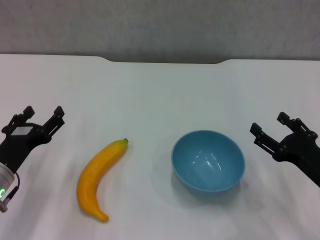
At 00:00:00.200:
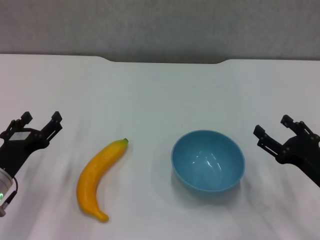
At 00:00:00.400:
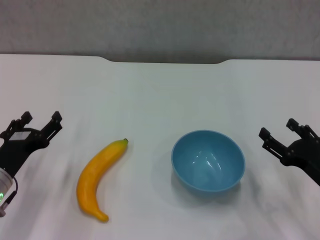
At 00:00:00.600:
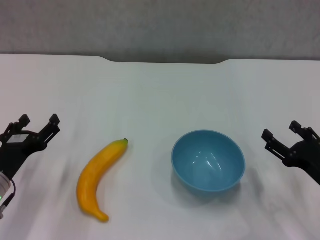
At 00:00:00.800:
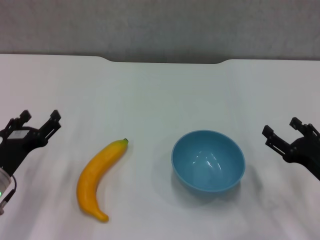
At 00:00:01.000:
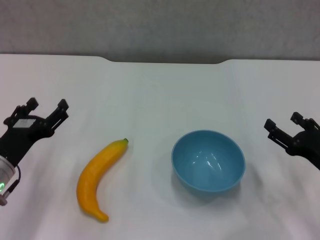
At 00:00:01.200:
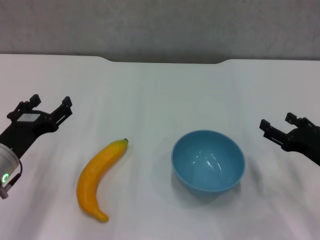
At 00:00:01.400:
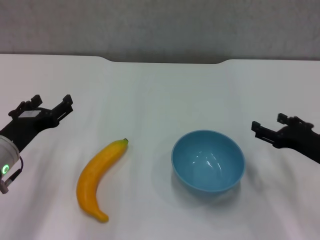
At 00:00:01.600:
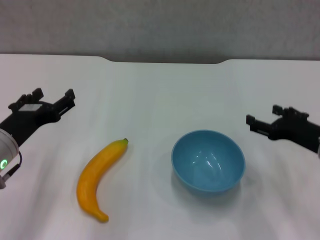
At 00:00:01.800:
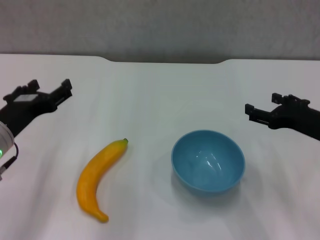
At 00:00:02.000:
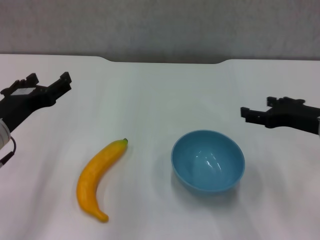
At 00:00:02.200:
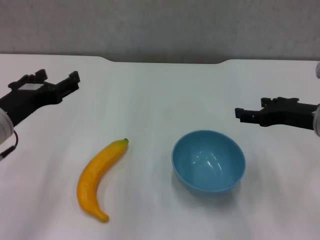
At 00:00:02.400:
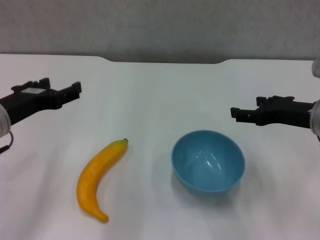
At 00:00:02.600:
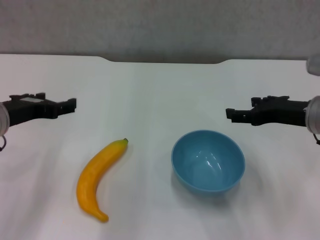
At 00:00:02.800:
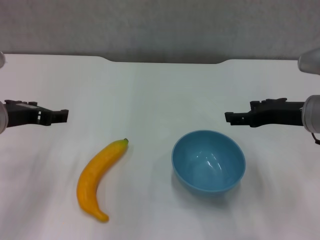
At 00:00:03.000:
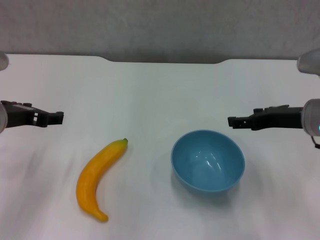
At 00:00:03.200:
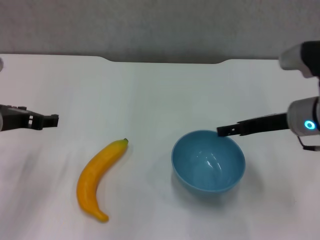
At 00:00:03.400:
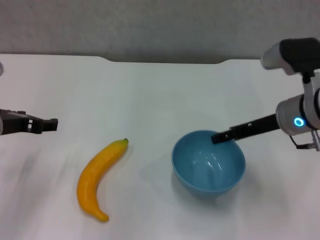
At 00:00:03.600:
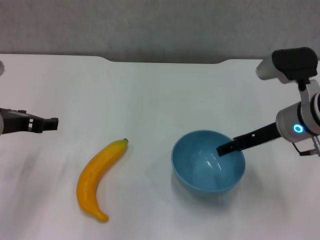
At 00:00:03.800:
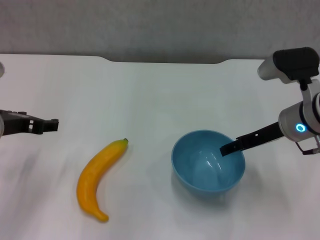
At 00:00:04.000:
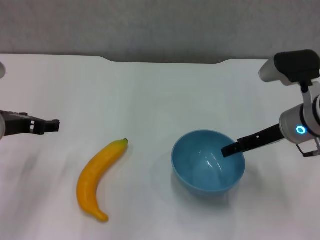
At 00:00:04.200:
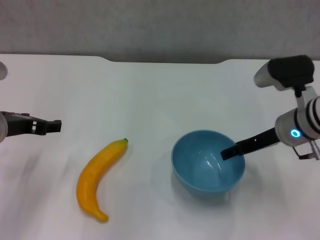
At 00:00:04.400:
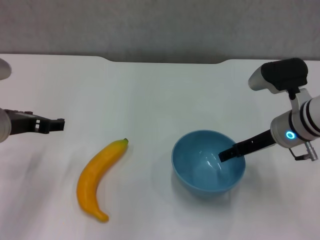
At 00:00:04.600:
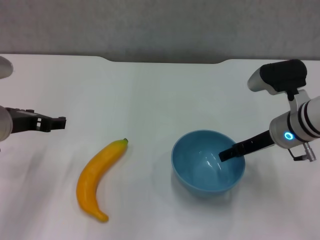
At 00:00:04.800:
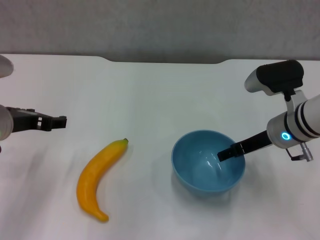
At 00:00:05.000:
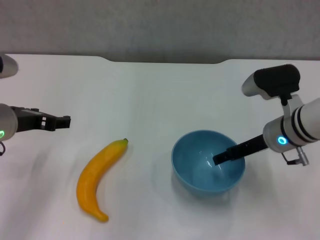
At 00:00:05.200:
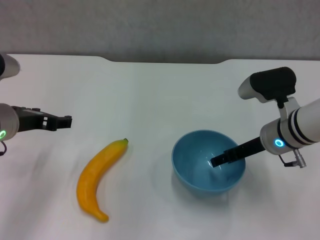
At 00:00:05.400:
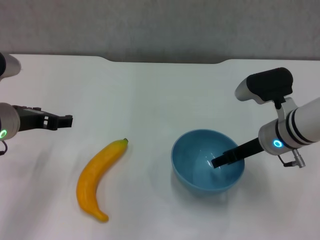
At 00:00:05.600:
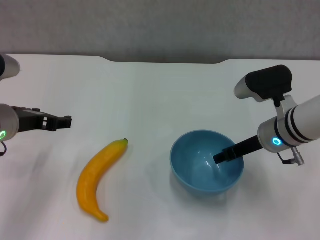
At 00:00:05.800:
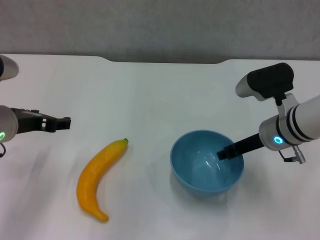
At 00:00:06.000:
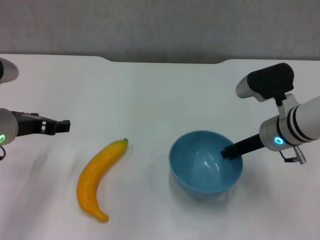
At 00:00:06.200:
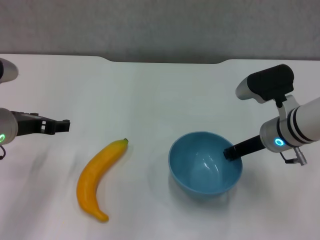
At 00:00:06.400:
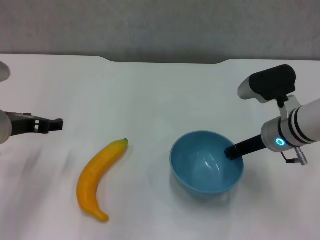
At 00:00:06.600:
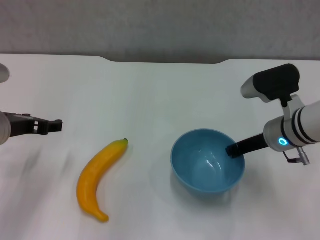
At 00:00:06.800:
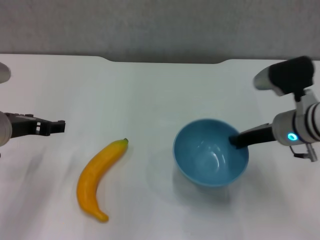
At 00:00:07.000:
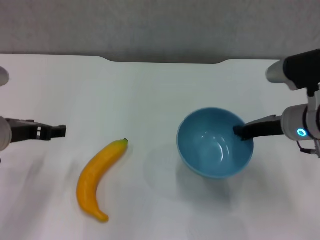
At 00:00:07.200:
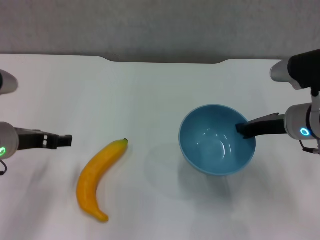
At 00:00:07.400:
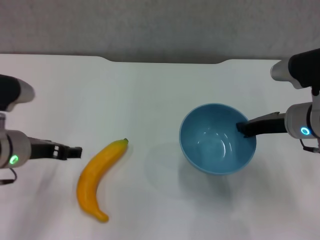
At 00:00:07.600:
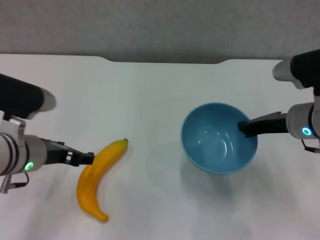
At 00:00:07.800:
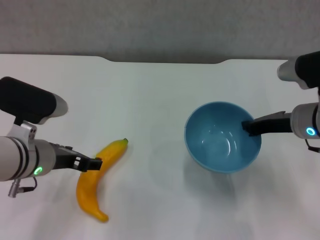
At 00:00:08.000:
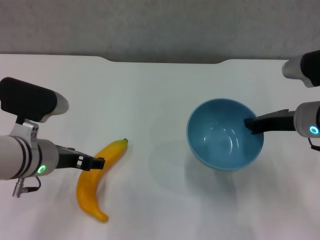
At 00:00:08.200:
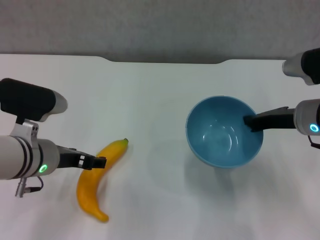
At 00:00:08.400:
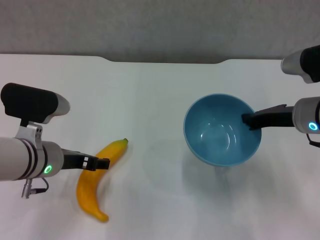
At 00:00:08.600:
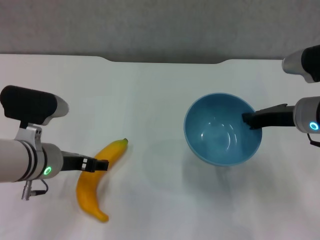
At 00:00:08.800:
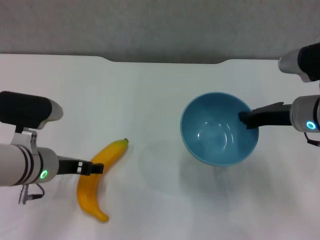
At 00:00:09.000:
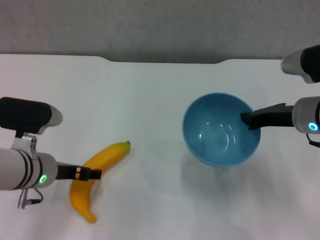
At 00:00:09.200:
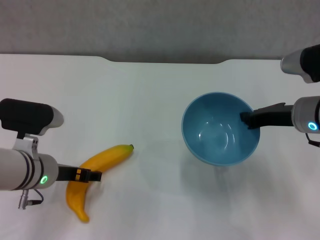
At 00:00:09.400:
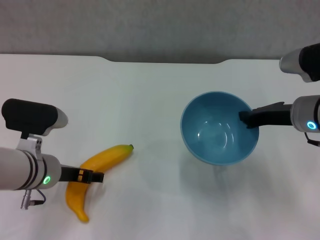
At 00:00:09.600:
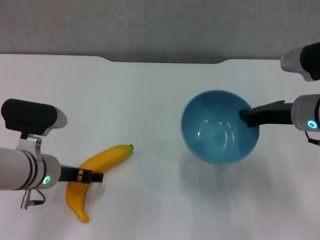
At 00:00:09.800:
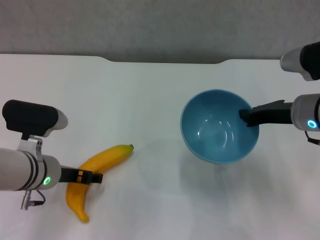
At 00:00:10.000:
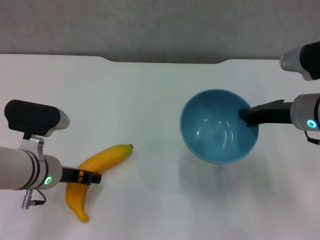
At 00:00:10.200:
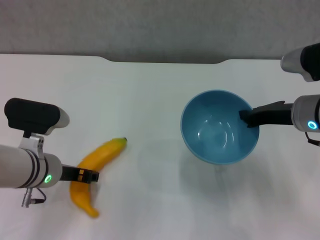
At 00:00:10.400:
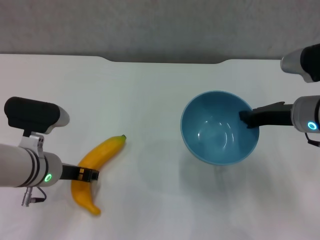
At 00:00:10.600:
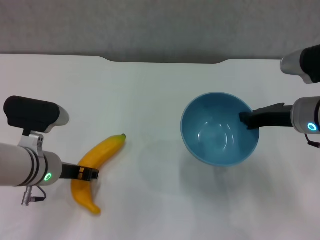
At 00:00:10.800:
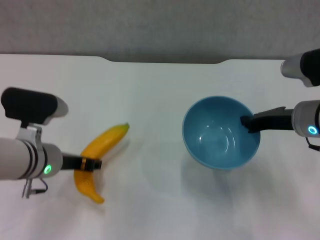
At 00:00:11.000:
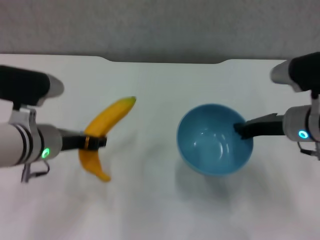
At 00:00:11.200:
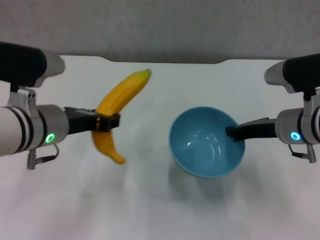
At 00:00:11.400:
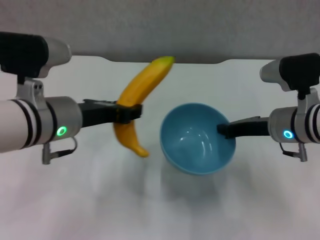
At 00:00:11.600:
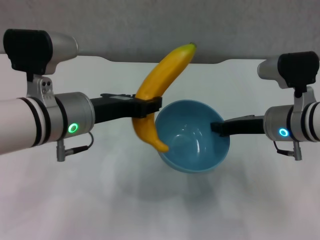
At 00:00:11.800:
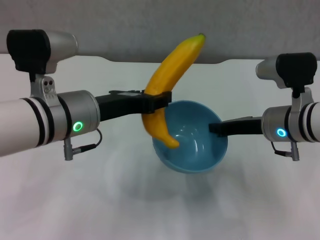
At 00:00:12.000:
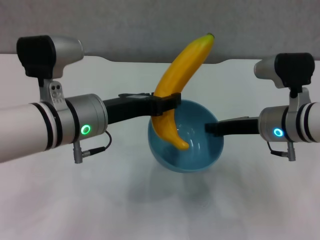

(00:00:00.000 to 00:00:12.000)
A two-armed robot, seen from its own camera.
Step, 00:00:00.000 - 00:00:06.200: Grasp the blue bowl with right gripper.
Step, 00:00:06.400 - 00:00:07.000: Lift the blue bowl with right gripper.
Step, 00:00:07.200 - 00:00:10.000: Grasp the banana with left gripper.
00:00:00.000 - 00:00:01.600: The right gripper travels forward by roughly 5 cm. The left gripper heads upward, covering about 5 cm.
00:00:01.600 - 00:00:03.000: Both grippers move upward, some 5 cm.
00:00:03.000 - 00:00:04.400: The right gripper ends up roughly 5 cm from where it was.
00:00:04.400 - 00:00:06.000: The right gripper closes its fingers.
00:00:06.000 - 00:00:07.600: The right gripper closes.
00:00:07.600 - 00:00:09.000: There are only small adjustments of the grippers.
00:00:09.000 - 00:00:10.400: The left gripper closes up.
00:00:10.400 - 00:00:12.000: The left gripper travels upward and to the right by approximately 10 cm.

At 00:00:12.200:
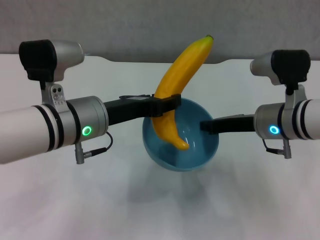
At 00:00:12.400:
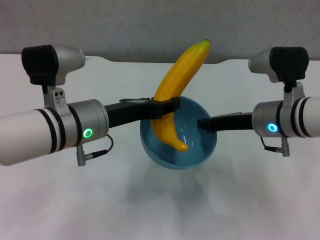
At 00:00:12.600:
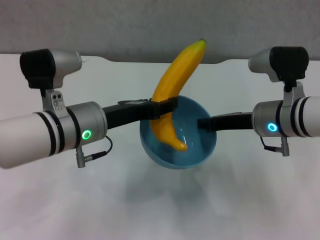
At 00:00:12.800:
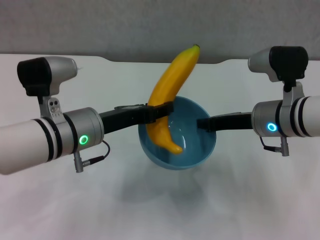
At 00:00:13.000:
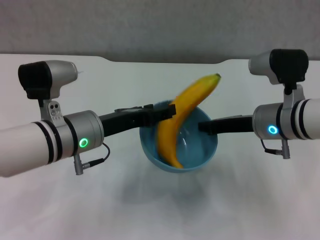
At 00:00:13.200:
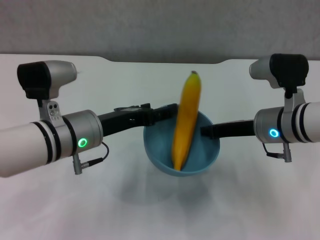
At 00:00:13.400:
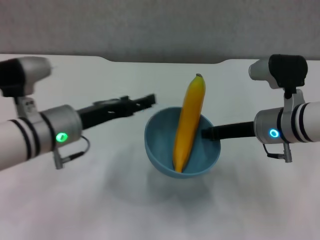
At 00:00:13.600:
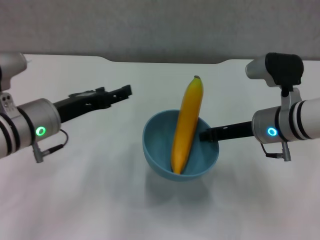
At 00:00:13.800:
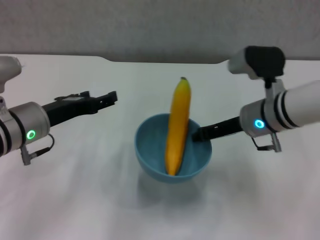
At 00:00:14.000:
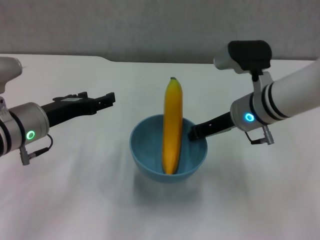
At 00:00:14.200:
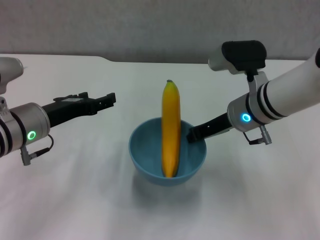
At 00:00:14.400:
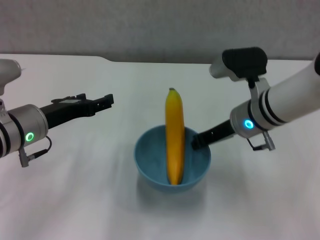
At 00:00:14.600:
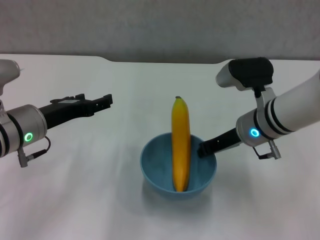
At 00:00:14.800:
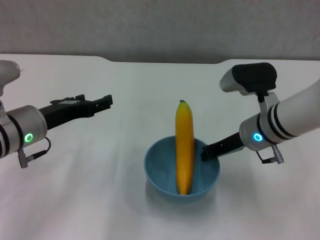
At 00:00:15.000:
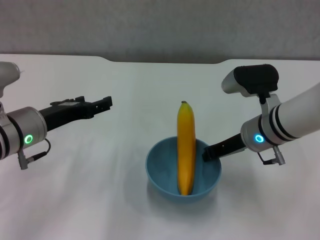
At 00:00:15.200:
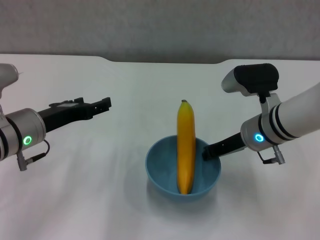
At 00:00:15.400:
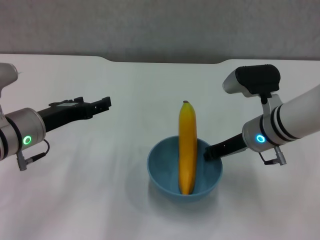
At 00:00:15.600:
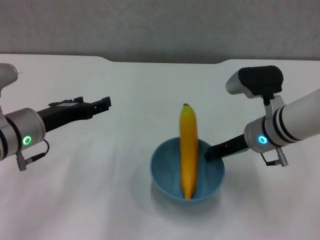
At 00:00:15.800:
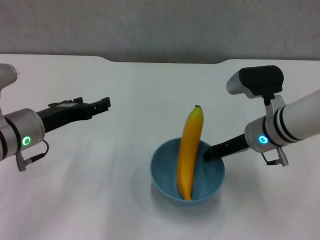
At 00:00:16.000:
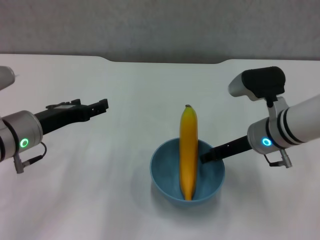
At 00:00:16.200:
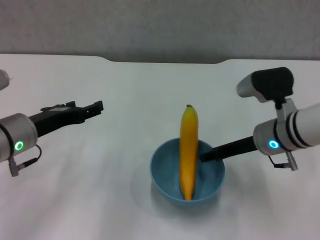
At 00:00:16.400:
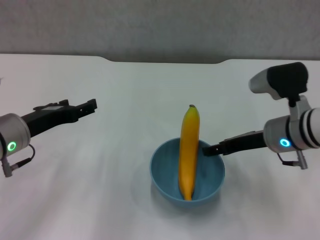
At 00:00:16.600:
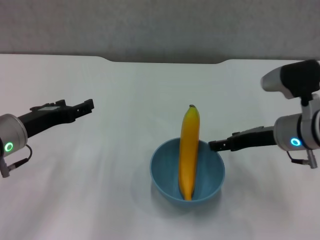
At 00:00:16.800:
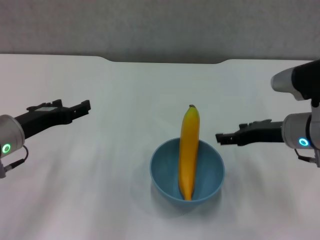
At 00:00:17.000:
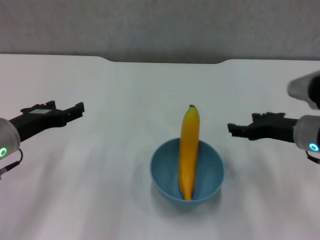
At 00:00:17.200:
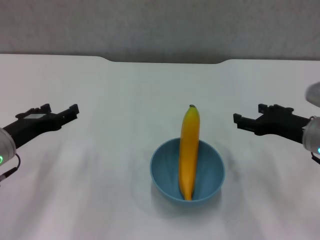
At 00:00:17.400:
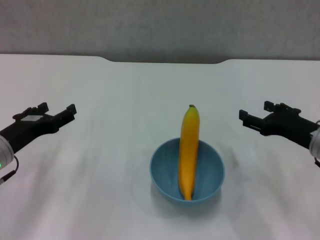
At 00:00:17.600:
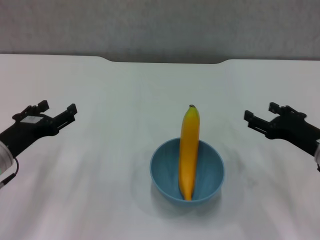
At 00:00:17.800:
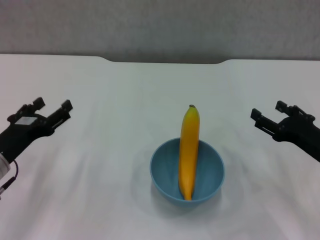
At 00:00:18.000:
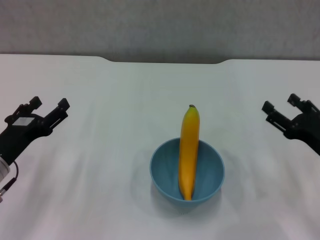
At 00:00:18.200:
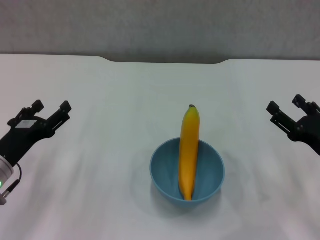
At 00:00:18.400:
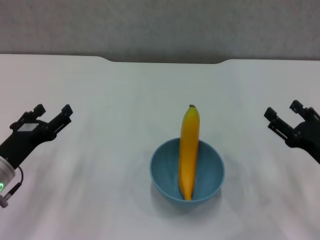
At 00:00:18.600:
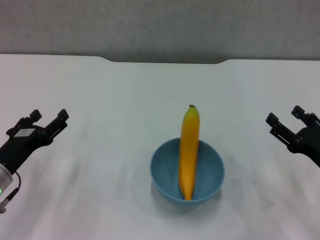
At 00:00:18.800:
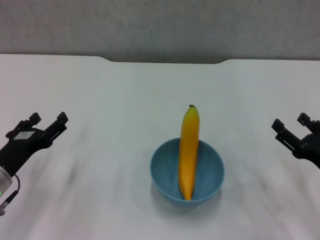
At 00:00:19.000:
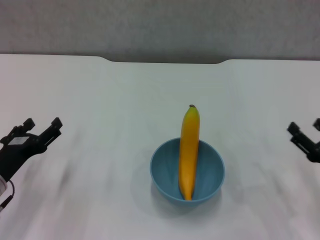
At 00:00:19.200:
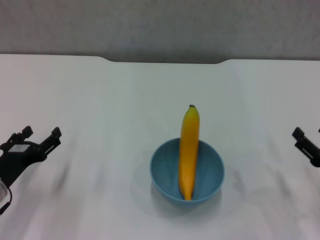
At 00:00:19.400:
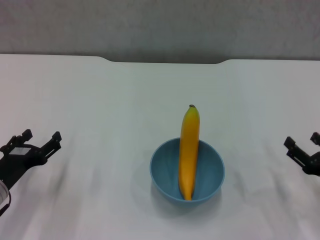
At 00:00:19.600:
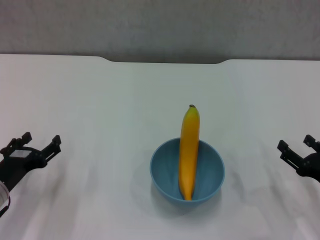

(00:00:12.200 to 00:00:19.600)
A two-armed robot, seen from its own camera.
Step, 00:00:13.200 - 00:00:16.400: Place the bowl on the table with right gripper.
00:00:12.200 - 00:00:13.600: The left gripper shifts approximately 5 cm to the left, and opens its fingers.
00:00:15.200 - 00:00:16.600: The right gripper moves about 5 cm, and opens.
00:00:16.600 - 00:00:18.200: The left gripper heads downward, covering approximately 5 cm, while the right gripper travels to the right, backward and downward by roughly 15 cm.
00:00:18.200 - 00:00:19.600: The right gripper moves roughly 5 cm.
